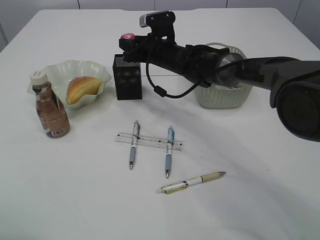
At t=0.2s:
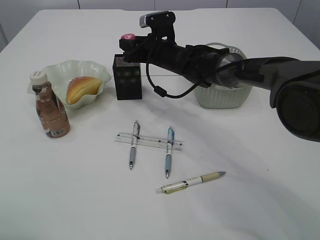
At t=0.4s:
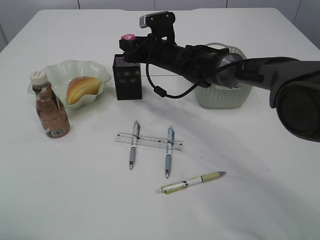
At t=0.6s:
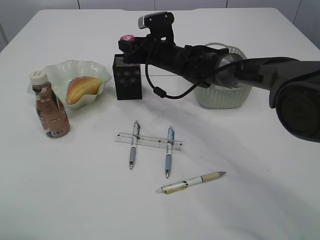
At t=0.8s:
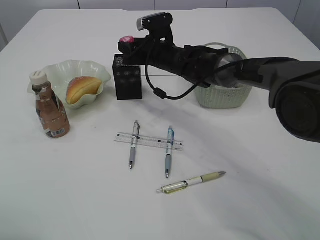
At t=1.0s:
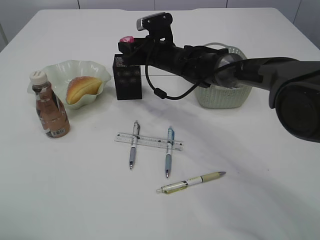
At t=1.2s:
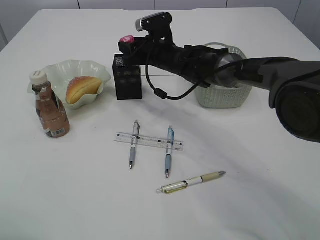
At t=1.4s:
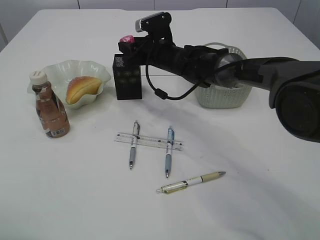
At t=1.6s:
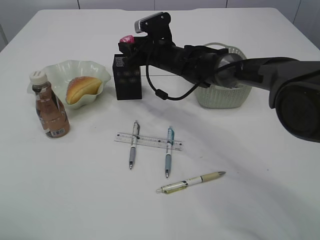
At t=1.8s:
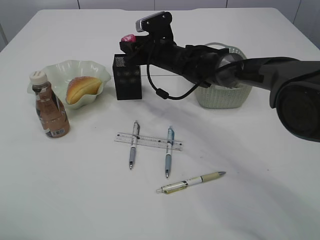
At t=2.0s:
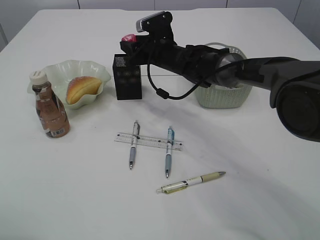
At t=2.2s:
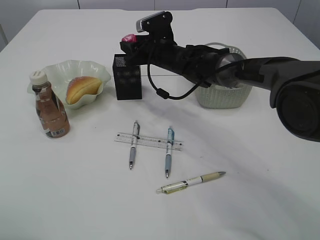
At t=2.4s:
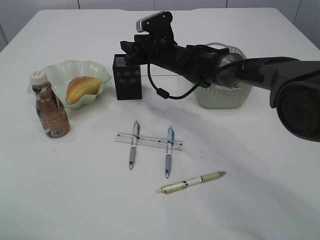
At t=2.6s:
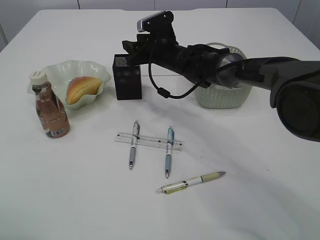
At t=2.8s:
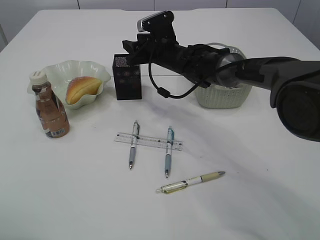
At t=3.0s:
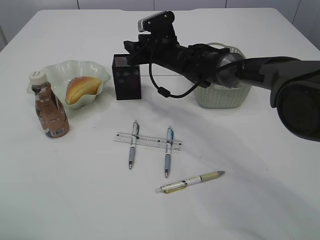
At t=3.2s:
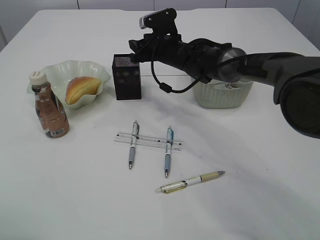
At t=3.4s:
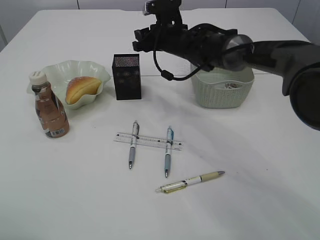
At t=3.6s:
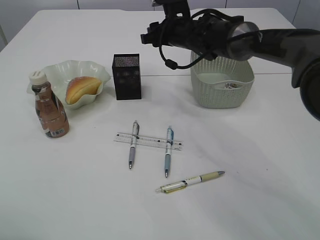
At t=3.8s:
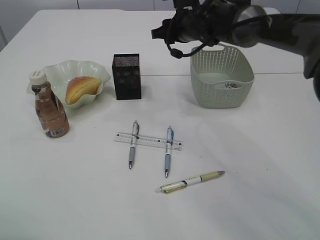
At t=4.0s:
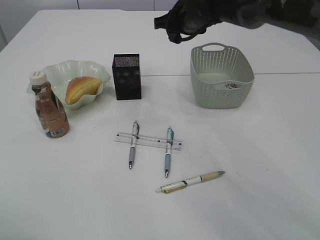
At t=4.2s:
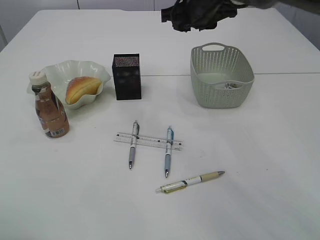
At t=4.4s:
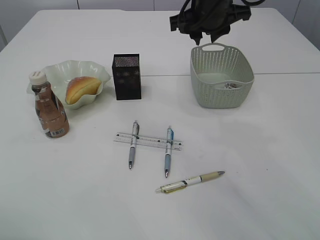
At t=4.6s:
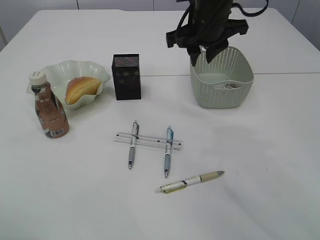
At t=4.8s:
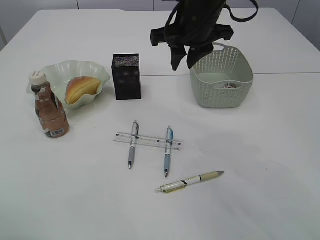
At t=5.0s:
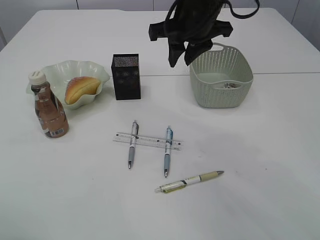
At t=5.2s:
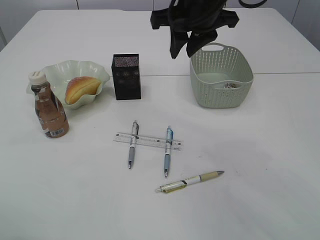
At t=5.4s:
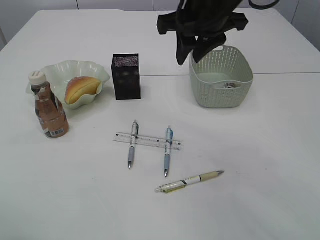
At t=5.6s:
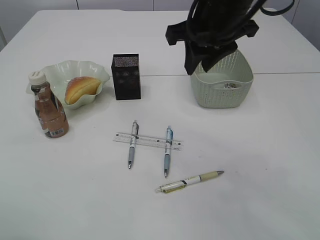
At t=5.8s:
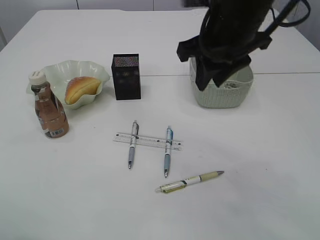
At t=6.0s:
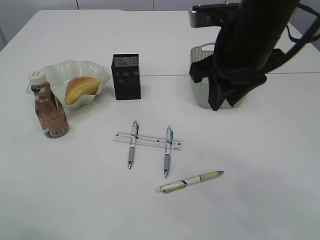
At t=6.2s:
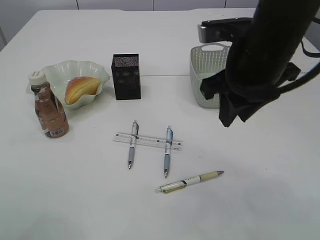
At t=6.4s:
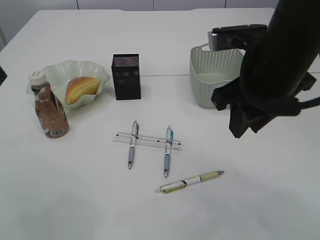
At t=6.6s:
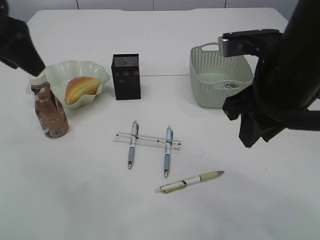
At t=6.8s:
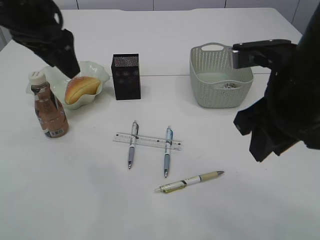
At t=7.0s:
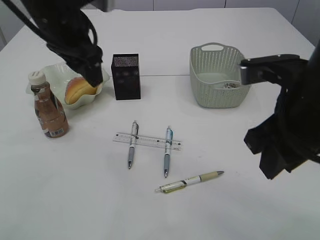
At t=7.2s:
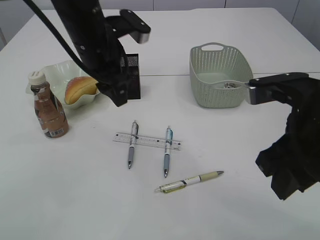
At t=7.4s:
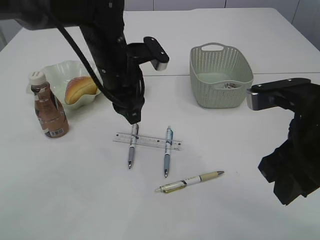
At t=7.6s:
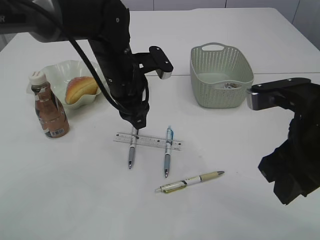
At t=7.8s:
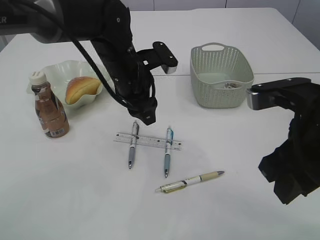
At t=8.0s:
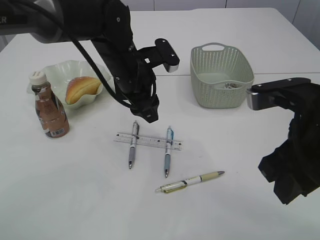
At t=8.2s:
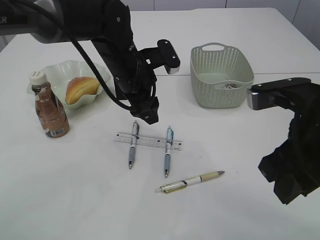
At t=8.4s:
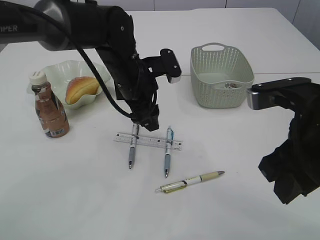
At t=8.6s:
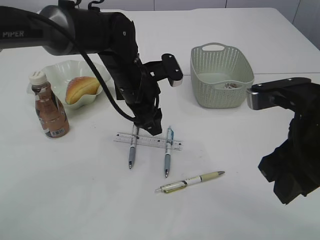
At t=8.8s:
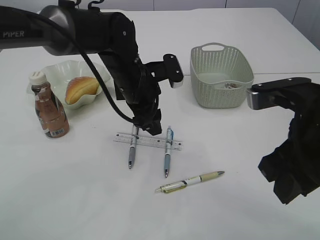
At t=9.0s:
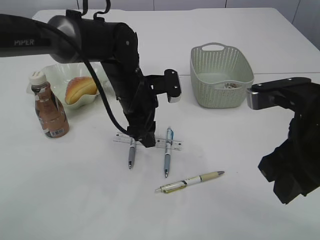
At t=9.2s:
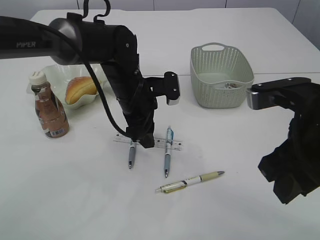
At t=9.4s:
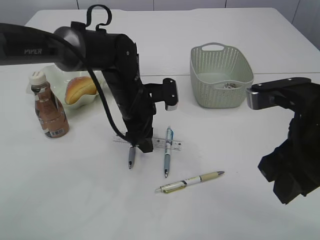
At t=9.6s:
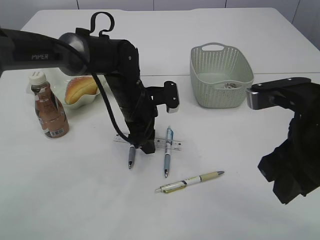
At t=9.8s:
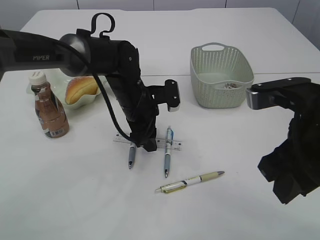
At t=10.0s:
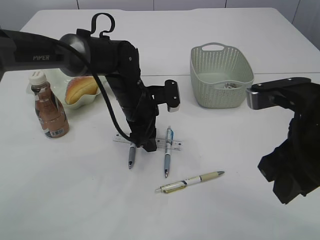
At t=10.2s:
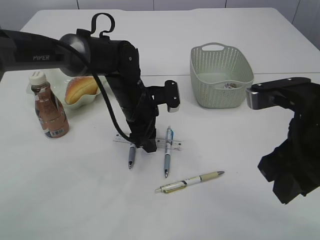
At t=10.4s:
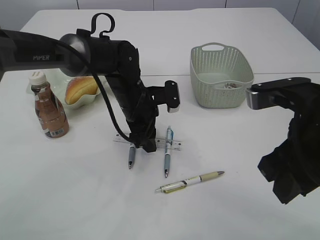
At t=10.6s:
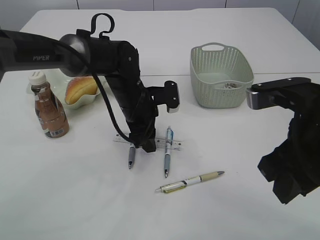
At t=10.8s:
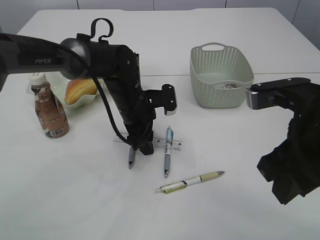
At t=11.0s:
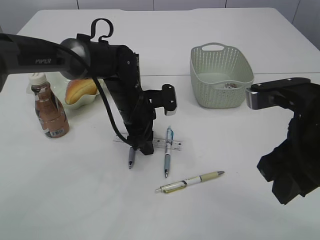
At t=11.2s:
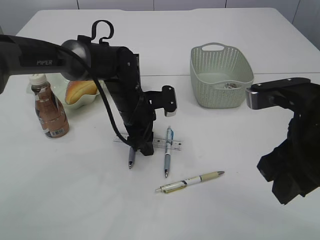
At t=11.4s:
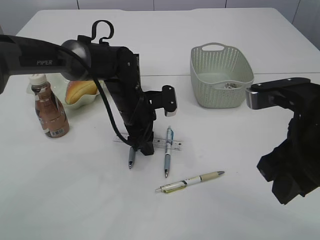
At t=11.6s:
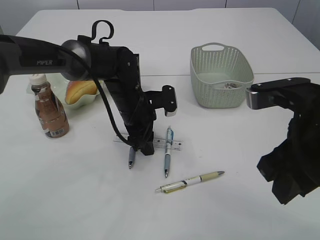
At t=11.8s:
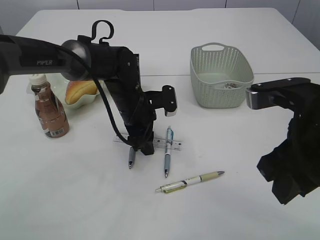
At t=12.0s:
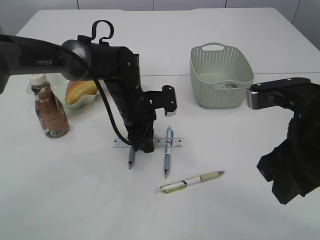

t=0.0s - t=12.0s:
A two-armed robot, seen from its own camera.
Step, t=0.0s - t=2.6s: Place the red pencil sharpener into the pen holder.
t=0.0s - t=1.6s: The grippers make only small movements.
t=1.6s - t=3.0s: Both grippers stay about where they are.
t=3.0s - t=4.4s: The right gripper goes approximately 15 cm upward, backward and to the right.
t=4.4s - t=6.0s: The right gripper goes about 15 cm backward.
t=6.0s - t=7.6s: The left gripper shifts roughly 30 cm to the right, forward and downward. Meanwhile the right gripper is displaced backward and to the right by approximately 15 cm.
t=7.6s - t=9.0s: The grippers stay close to where they were, moving slightly.
t=9.0s - t=10.4s: The grippers stay close to where they were, moving slightly.
t=10.4s - t=12.0s: Both grippers stay about where they are.

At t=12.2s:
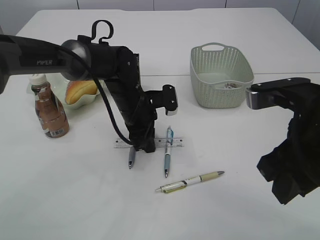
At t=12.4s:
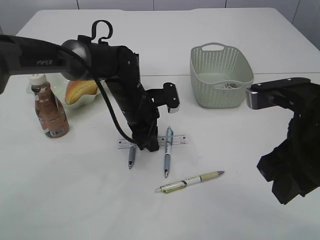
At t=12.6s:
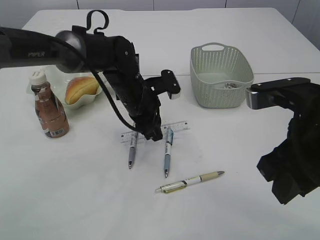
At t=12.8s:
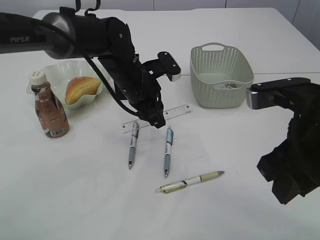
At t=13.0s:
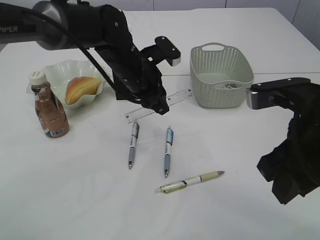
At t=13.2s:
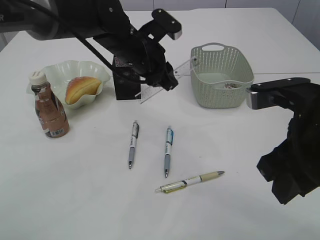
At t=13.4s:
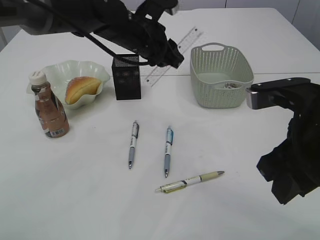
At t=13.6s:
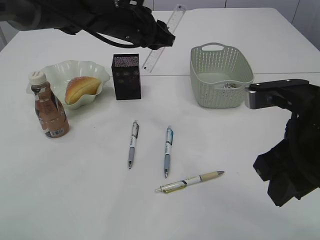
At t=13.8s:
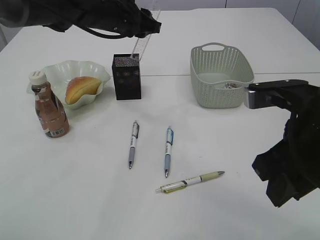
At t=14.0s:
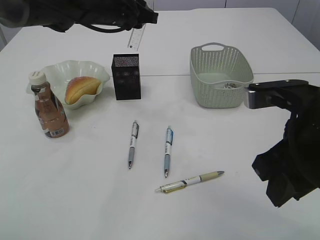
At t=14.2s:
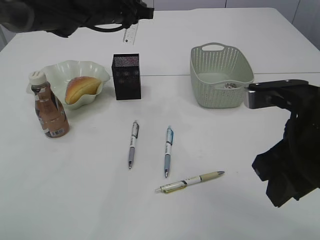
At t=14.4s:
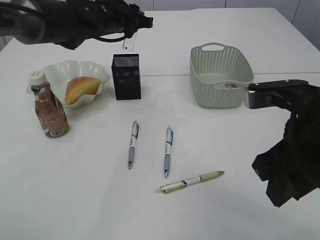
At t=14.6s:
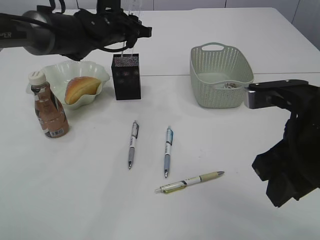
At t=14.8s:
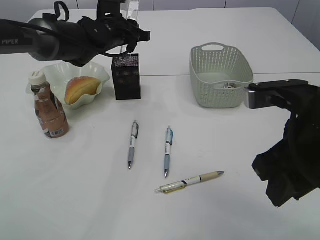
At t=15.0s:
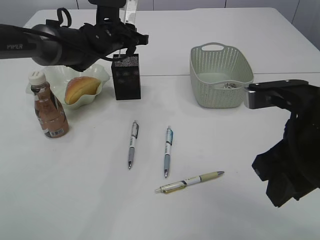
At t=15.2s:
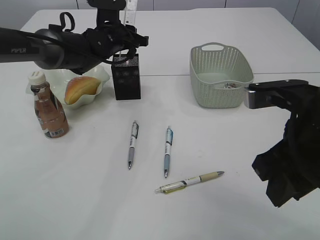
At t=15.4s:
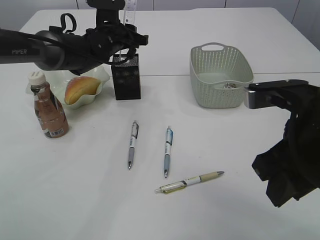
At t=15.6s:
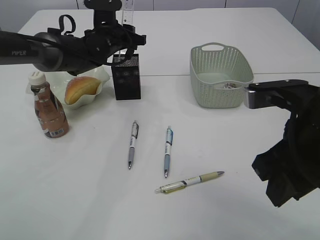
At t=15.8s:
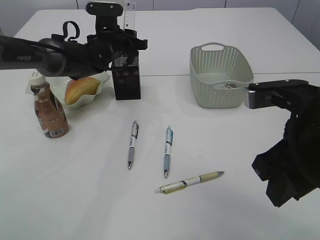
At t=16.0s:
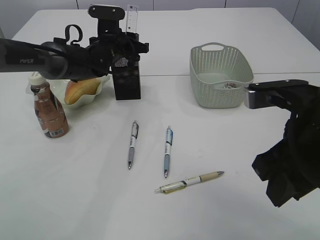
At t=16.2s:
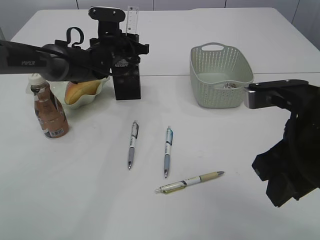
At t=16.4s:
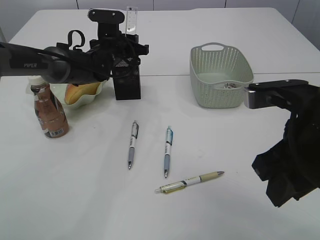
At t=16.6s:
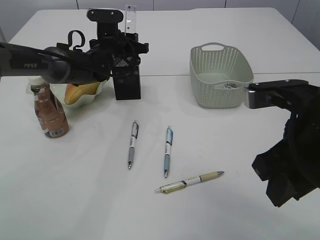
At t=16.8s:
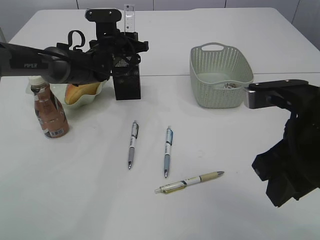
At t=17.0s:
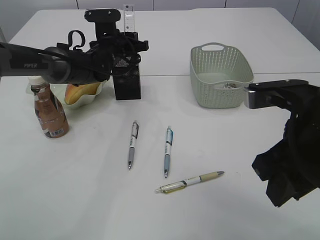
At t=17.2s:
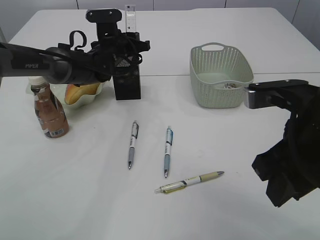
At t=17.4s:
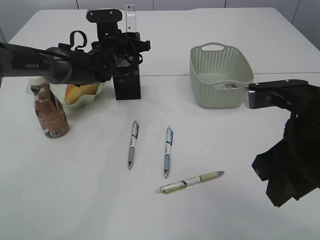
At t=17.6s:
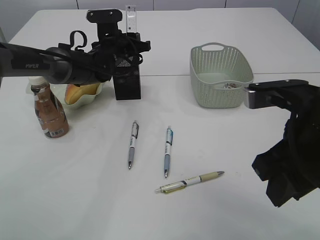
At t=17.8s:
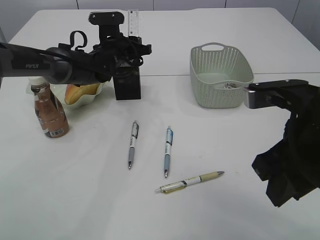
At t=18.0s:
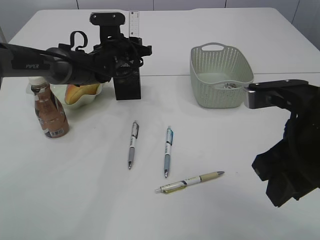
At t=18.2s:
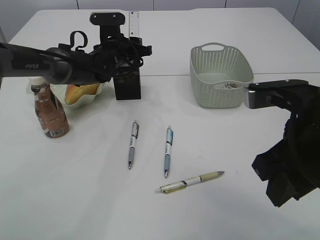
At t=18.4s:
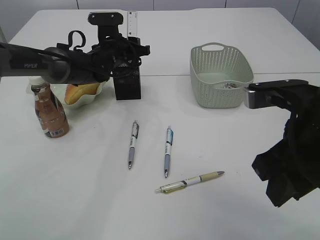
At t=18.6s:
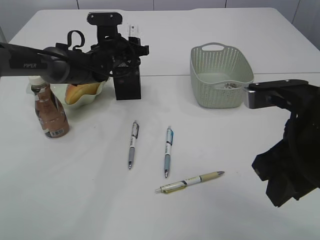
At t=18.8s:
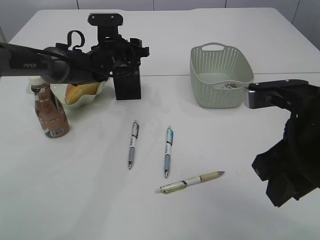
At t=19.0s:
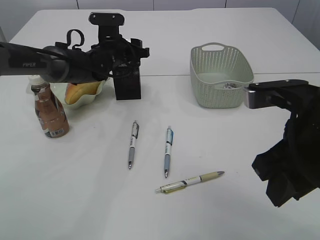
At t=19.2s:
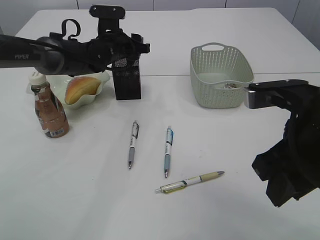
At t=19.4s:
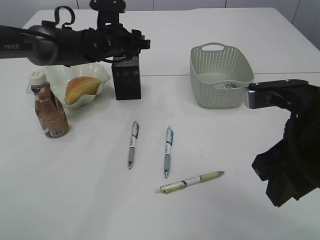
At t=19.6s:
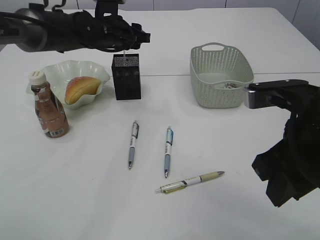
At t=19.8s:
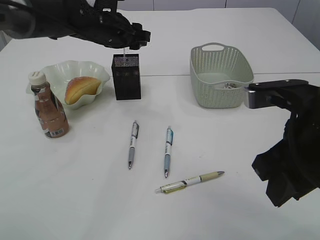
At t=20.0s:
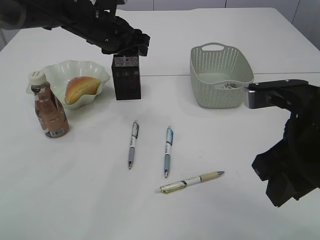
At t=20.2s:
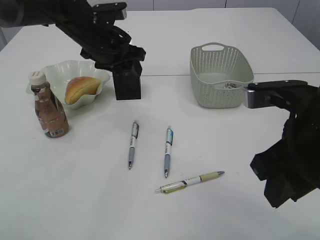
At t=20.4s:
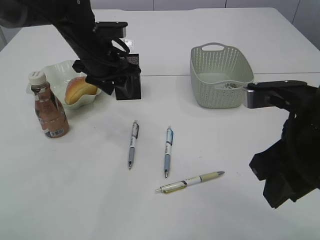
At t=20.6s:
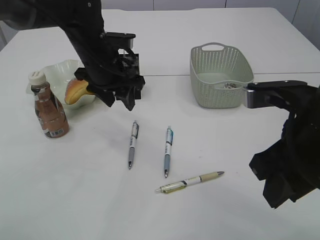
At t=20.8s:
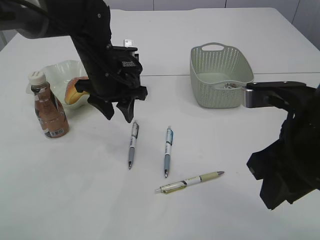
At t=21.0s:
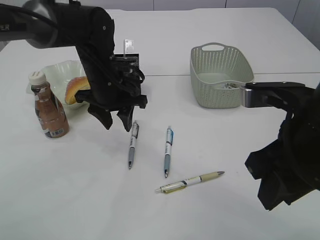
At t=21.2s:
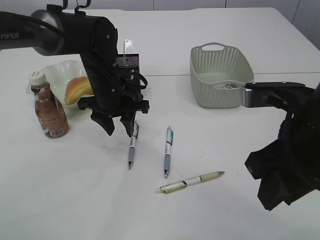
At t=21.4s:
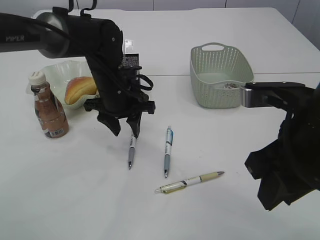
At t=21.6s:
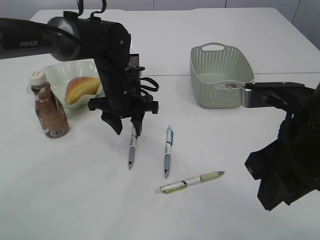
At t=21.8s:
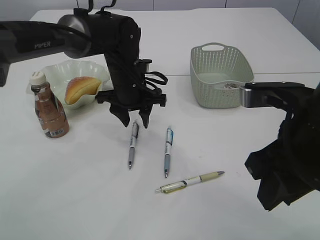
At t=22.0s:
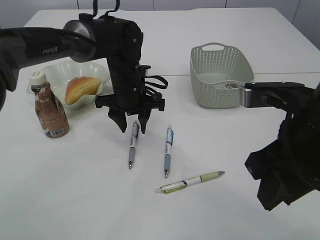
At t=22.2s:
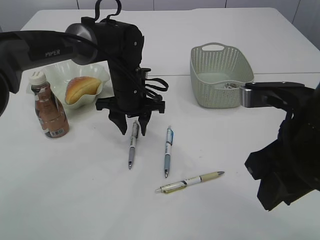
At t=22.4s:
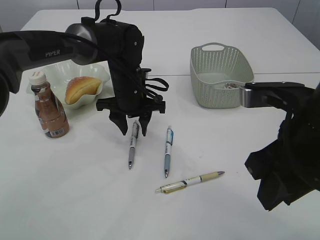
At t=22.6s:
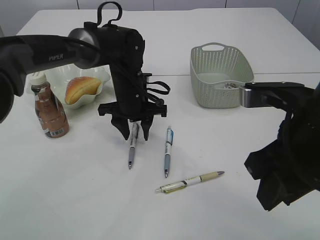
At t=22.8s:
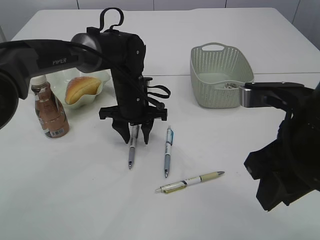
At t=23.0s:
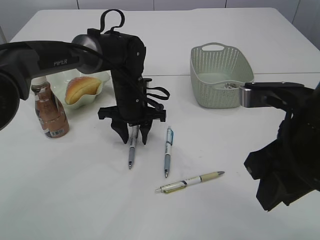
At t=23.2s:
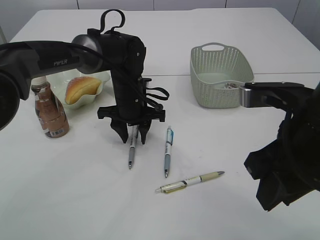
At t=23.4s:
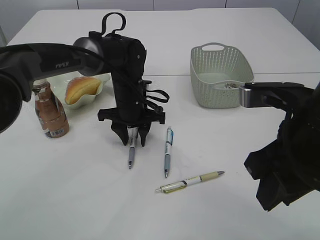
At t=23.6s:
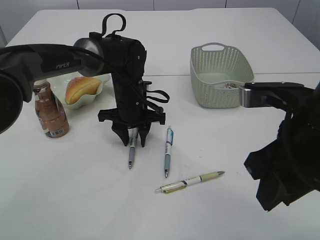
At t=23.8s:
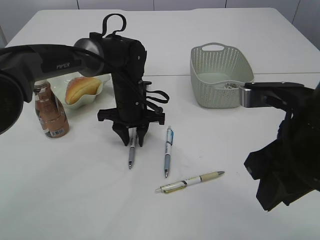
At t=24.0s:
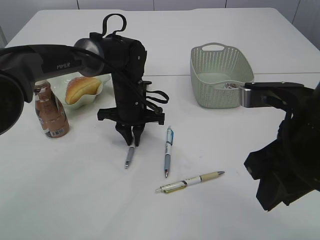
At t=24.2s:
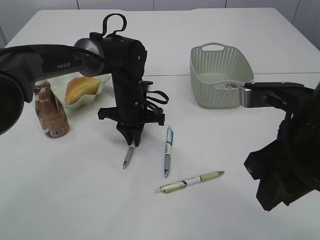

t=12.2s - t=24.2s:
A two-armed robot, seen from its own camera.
Step, t=12.8s - t=20.2s: Place the ruler into the pen holder.
t=12.2s - t=13.8s: The left gripper goes approximately 15 cm upward.
t=13.8s - t=15.2s: The left gripper heads downward, covering approximately 5 cm.
t=15.2s - t=18.2s: The grippers make only small movements.
t=18.2s - t=19.8s: The left gripper goes about 5 cm upward.
t=19.8s - t=21.2s: The left gripper is displaced backward and downward by approximately 10 cm.
t=21.2s - t=22.6s: There are only small adjustments of the grippers.
t=22.6s - t=24.2s: The left gripper closes up.
